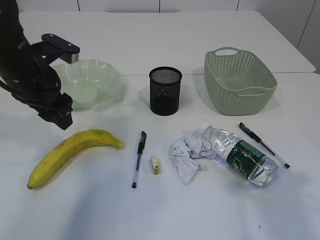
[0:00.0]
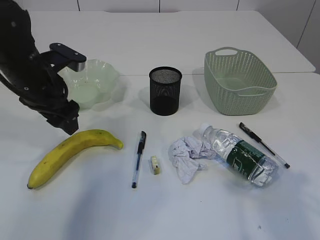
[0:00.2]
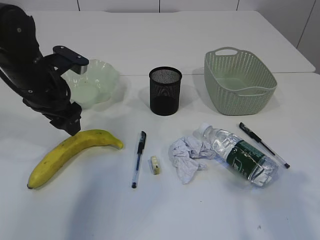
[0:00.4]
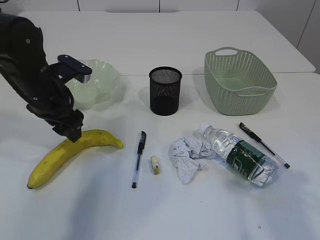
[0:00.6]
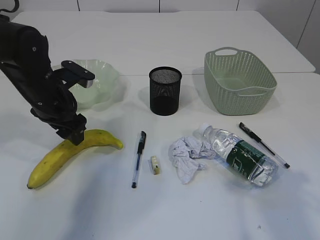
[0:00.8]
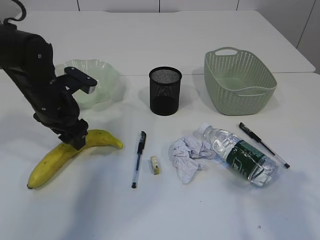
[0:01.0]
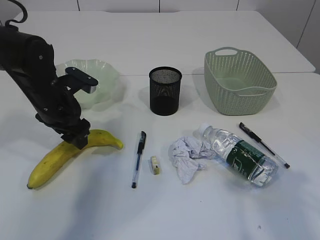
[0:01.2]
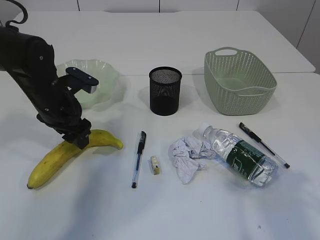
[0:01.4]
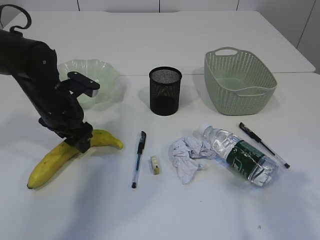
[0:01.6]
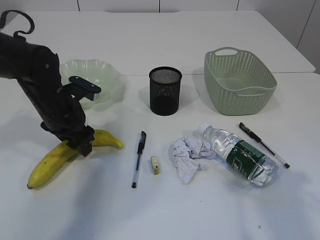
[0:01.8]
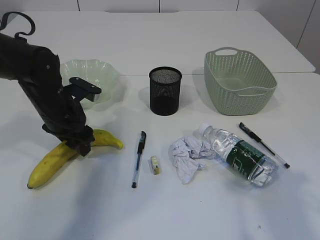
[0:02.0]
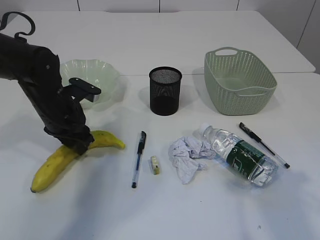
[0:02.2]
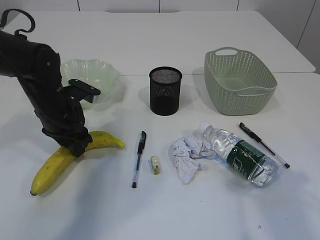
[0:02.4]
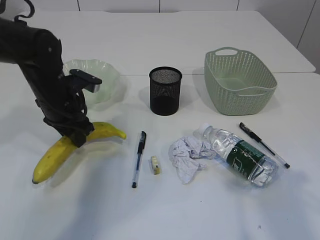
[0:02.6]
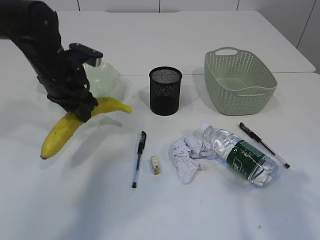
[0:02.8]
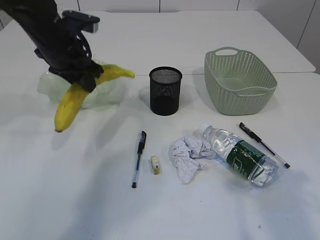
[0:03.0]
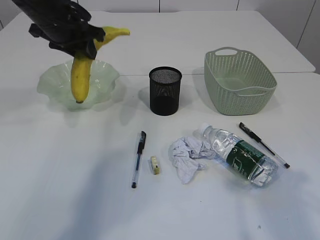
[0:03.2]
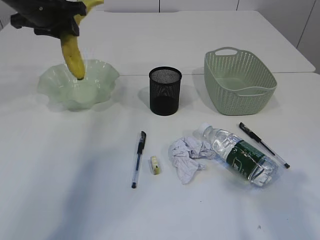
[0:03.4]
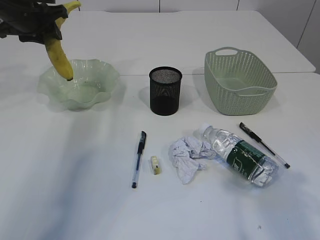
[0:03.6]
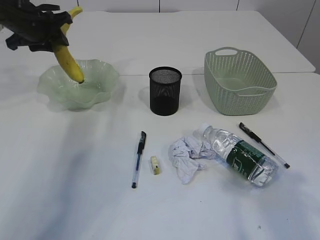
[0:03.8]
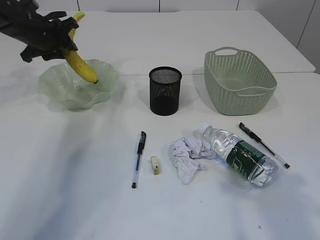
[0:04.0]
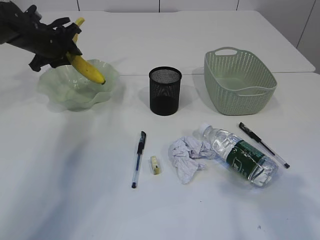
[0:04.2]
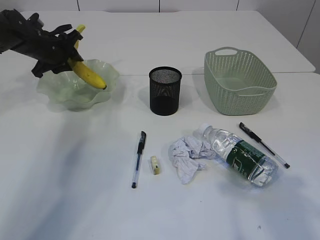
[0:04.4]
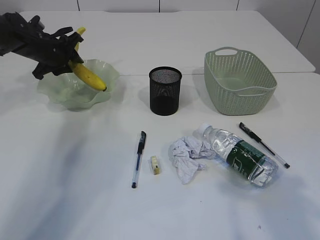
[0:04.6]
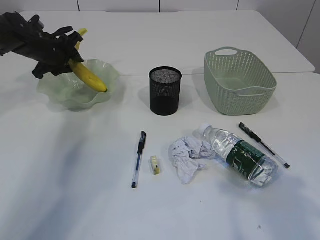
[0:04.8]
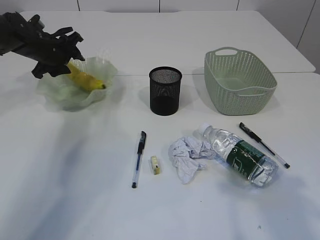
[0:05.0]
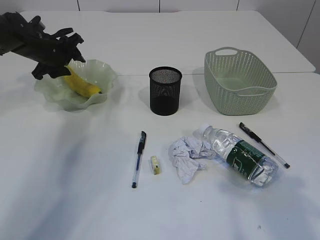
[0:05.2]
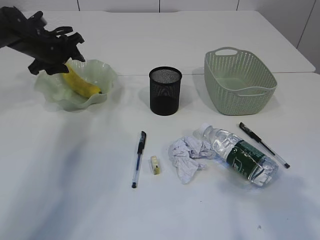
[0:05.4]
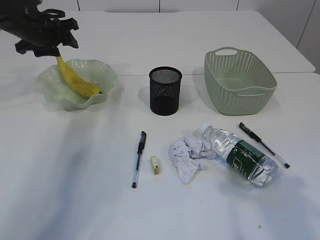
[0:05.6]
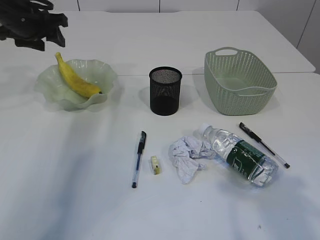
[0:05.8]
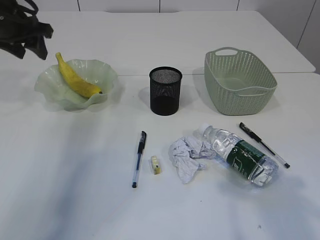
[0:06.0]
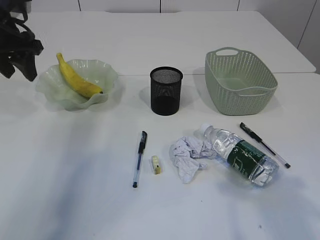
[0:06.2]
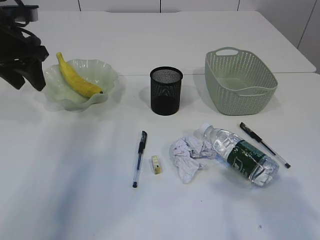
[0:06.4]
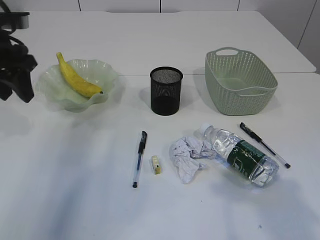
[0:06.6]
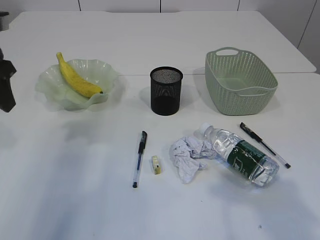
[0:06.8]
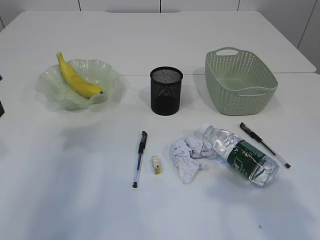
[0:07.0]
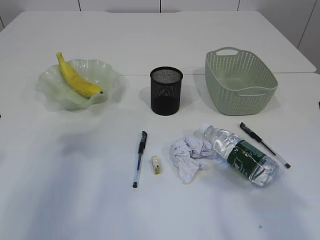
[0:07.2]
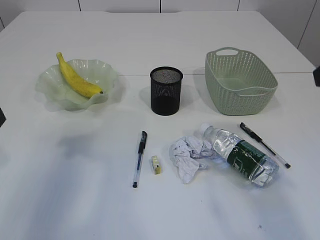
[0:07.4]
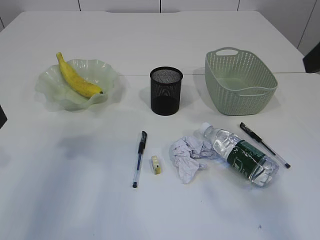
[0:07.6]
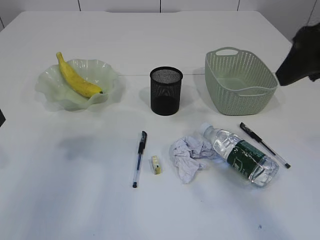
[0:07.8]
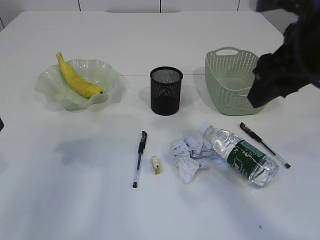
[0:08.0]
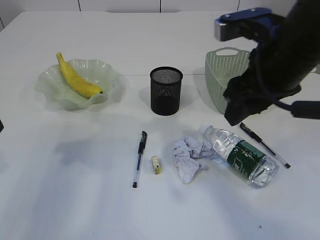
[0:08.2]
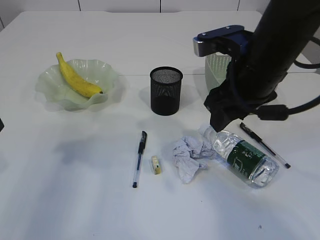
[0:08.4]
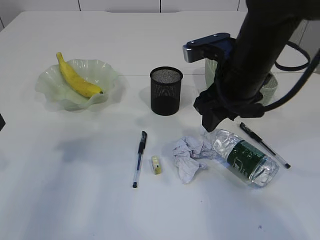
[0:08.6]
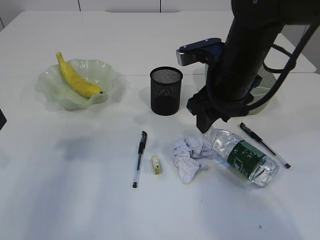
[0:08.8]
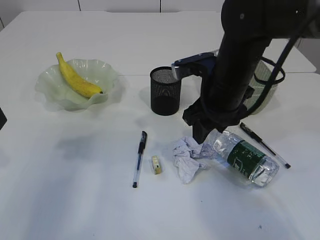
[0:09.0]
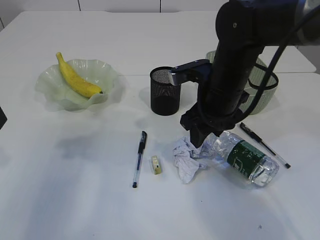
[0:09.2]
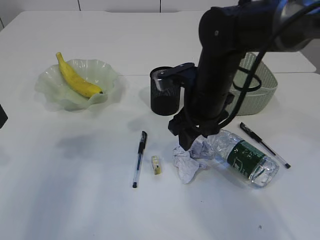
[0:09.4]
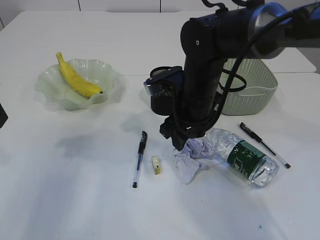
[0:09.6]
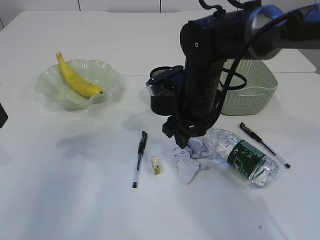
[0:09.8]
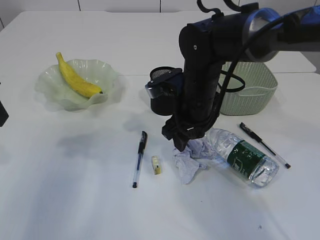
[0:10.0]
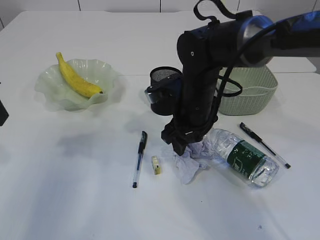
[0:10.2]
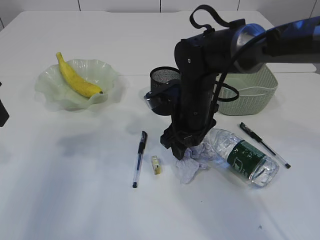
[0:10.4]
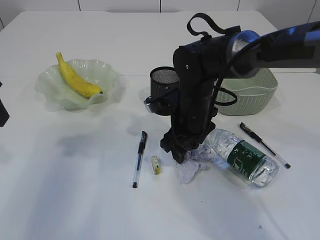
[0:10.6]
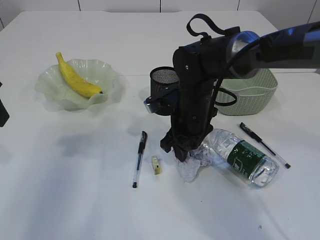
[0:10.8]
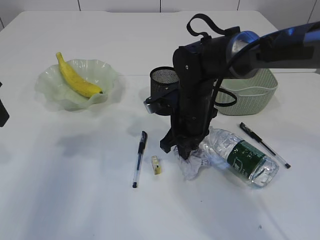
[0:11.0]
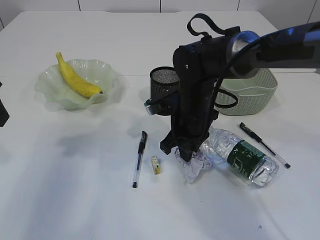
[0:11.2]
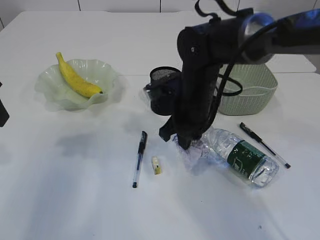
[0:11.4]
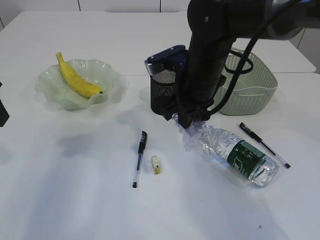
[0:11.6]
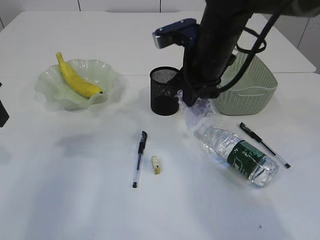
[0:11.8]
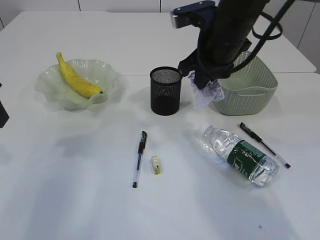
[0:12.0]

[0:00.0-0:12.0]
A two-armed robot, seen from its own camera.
Step, 0:02.8 to 0:05.8: Place the banana in the plate.
Step, 0:06.0 to 0:11.6: Pick up the waste paper.
0:00.0 to 0:01.6: The left gripper shifts roughly 10 cm downward.
0:01.6 to 0:03.0: The left gripper shifts some 10 cm upward, and closes its fingers.
0:03.0 to 0:04.4: The left gripper moves forward, to the left and downward, approximately 15 cm.
0:04.4 to 0:06.0: The left gripper moves upward and backward, roughly 10 cm, and opens its fingers.
0:06.0 to 0:07.6: The right gripper travels forward by approximately 5 cm; the left gripper goes approximately 15 cm backward.
0:07.6 to 0:09.0: The right gripper shifts roughly 25 cm downward, to the left and forward.
0:09.0 to 0:10.4: The right gripper goes about 5 cm downward.
0:10.4 to 0:12.0: The right gripper travels upward by about 10 cm, and closes.

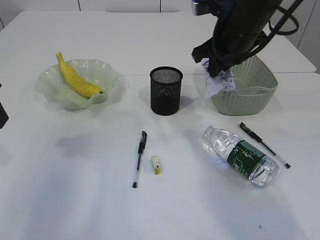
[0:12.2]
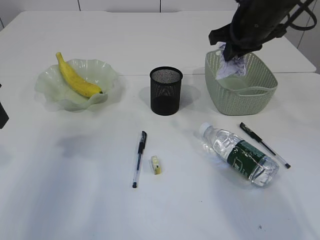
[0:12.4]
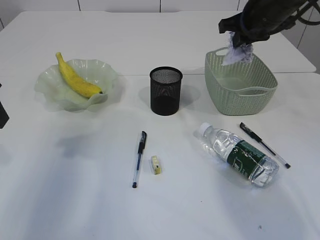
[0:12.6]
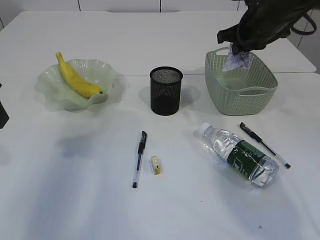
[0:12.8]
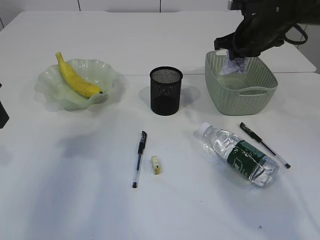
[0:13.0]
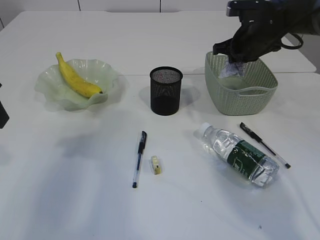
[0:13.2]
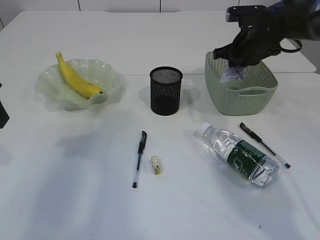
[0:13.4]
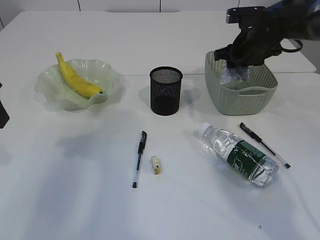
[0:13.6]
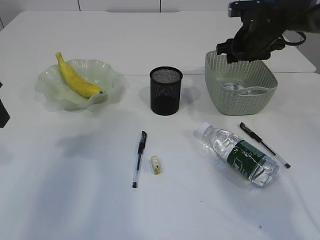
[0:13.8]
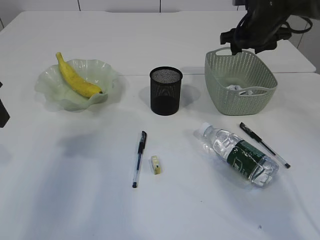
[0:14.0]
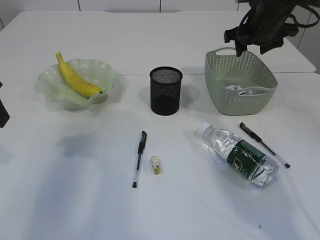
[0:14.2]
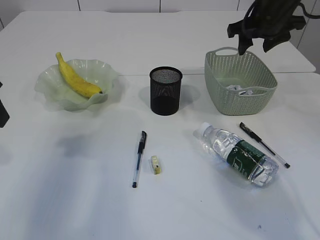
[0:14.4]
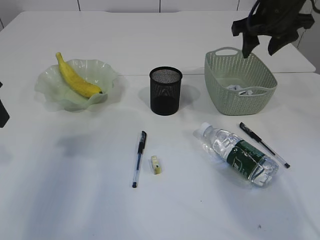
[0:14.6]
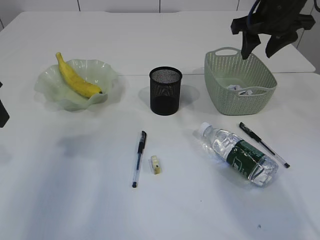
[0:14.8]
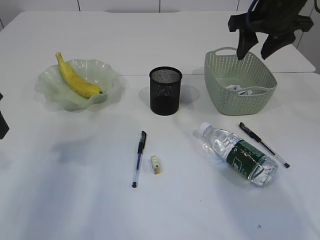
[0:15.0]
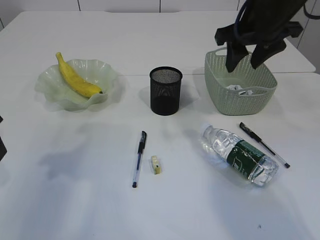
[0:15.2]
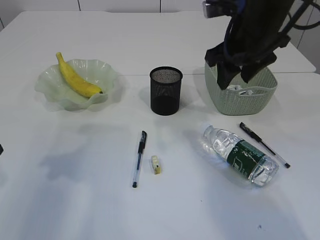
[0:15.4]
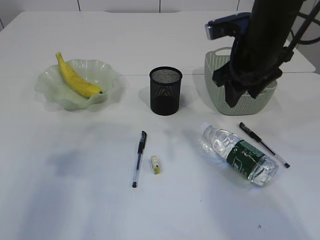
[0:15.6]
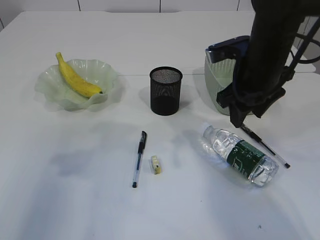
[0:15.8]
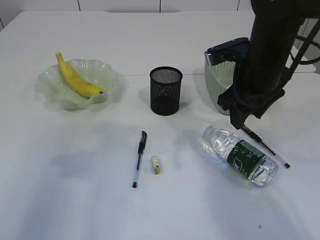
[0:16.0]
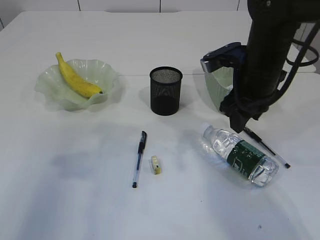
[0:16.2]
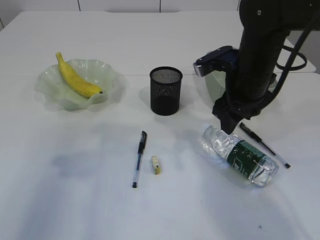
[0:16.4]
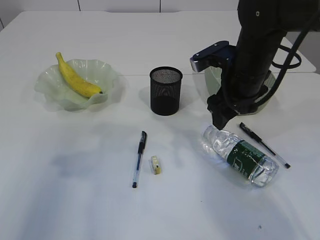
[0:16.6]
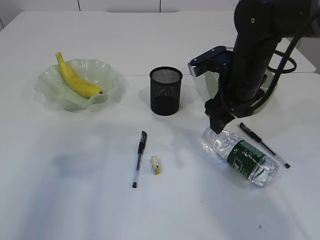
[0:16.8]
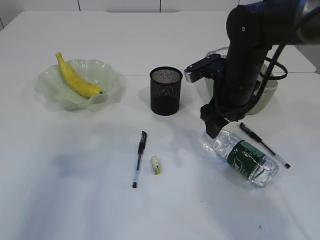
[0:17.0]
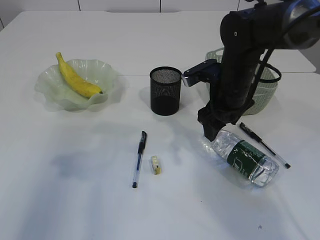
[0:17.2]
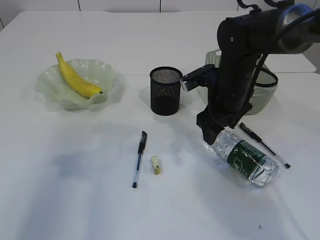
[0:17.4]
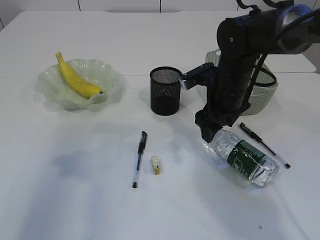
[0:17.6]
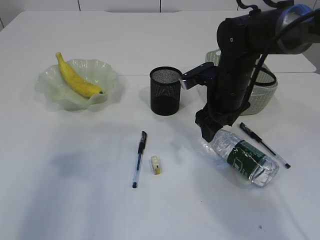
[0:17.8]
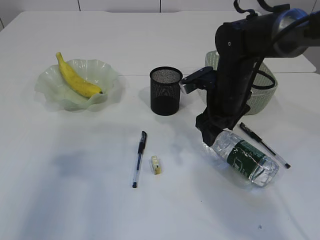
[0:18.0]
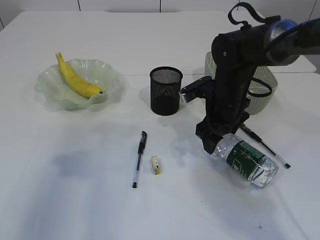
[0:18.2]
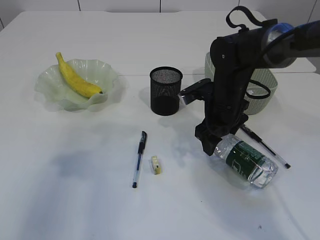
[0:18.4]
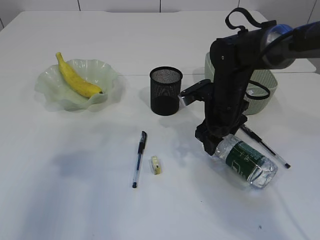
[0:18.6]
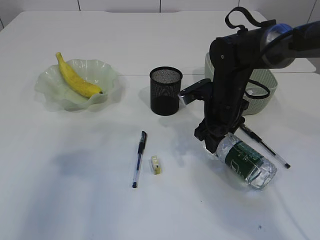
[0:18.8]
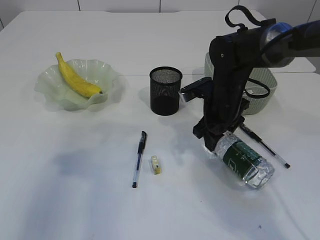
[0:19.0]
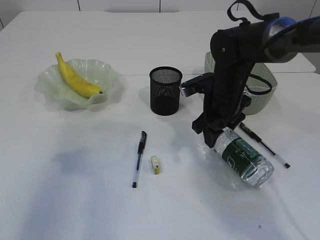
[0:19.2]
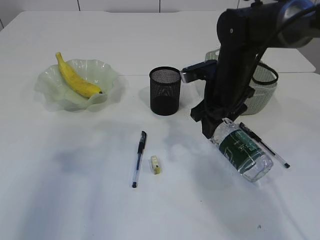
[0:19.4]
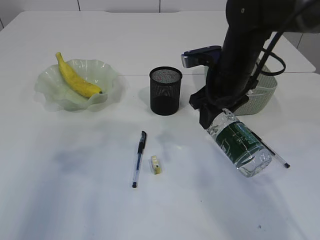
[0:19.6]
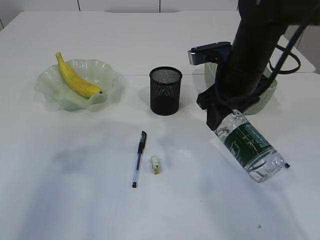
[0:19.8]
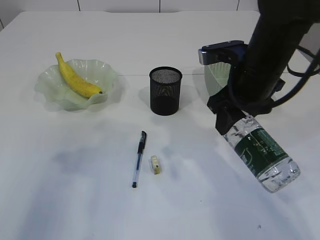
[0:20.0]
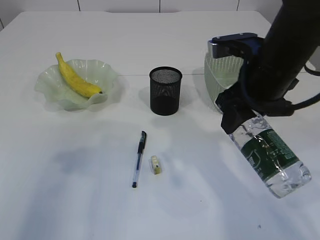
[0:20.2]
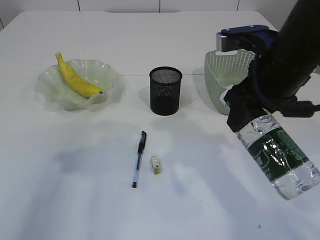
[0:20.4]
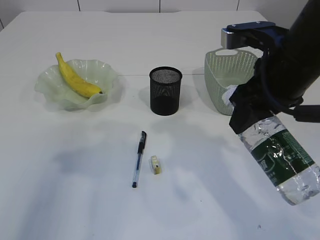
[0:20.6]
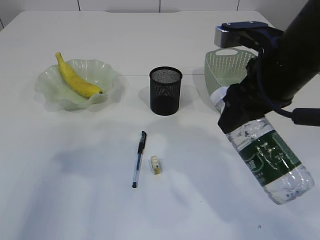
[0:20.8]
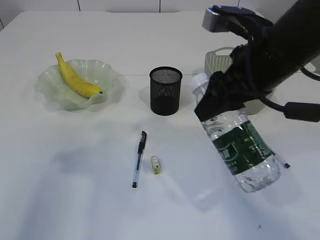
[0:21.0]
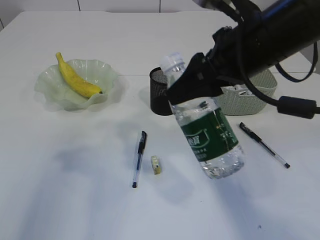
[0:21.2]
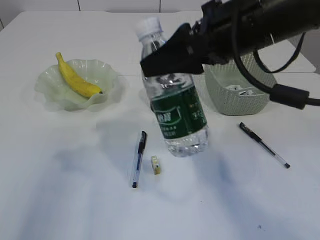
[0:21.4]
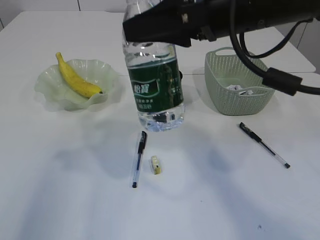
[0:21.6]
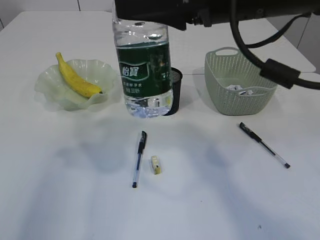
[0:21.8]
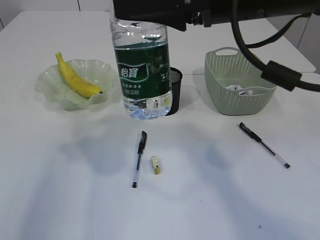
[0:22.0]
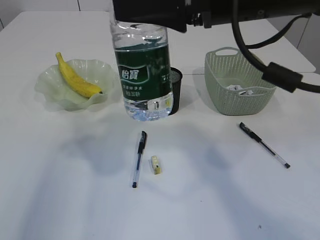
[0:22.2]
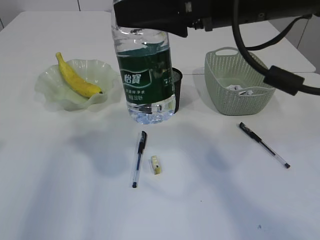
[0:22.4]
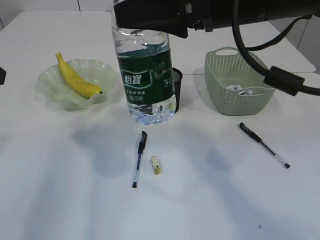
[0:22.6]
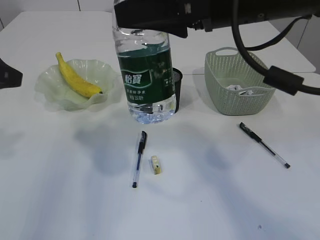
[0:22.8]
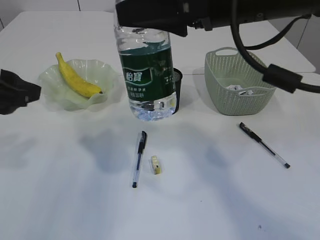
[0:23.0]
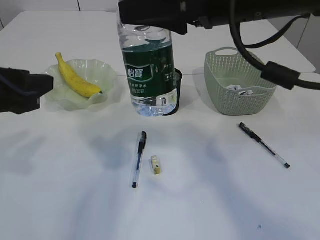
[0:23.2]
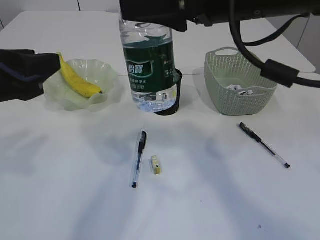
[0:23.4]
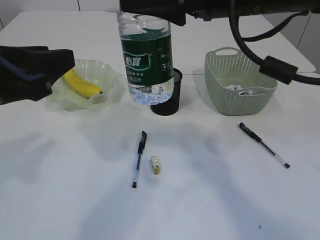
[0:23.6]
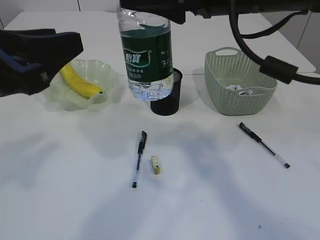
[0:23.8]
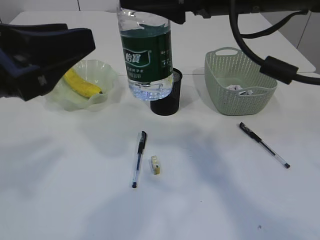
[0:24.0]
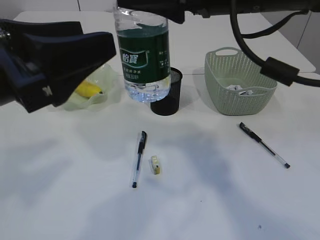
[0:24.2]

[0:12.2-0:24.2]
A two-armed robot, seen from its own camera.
Step, 0:12.2 to 0:14.6: Place the waste paper in the basket.
Step, 0:14.8 to 0:19.8: Pick up the bottle with the right arm.
0:12.2 to 0:13.8: The right gripper is displaced forward, to the right and downward by some 15 cm, and opens.
0:13.8 to 0:15.2: The right gripper shifts about 15 cm backward and upward.
0:15.2 to 0:16.6: The right gripper shifts approximately 10 cm downward, while the left gripper shifts approximately 5 cm upward.
0:16.6 to 0:18.2: The right gripper travels downward by approximately 10 cm.
0:18.2 to 0:19.8: The right gripper shifts some 10 cm upward, and closes its fingers.
0:19.8 to 0:21.2: The right gripper goes some 10 cm backward and upward.
0:21.2 to 0:22.6: The right gripper shifts by about 5 cm.
0:22.6 to 0:24.2: The left gripper moves to the right and backward, some 15 cm, and opens.
